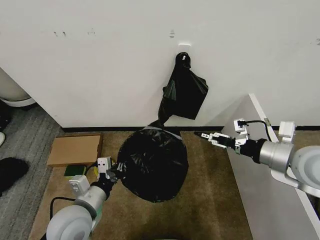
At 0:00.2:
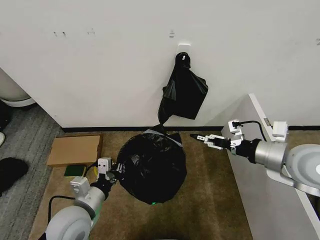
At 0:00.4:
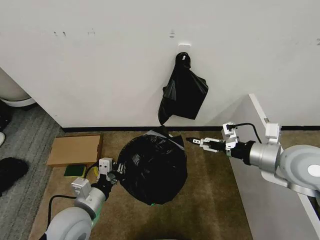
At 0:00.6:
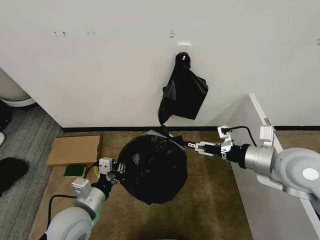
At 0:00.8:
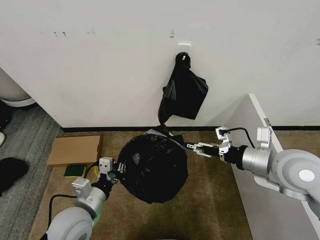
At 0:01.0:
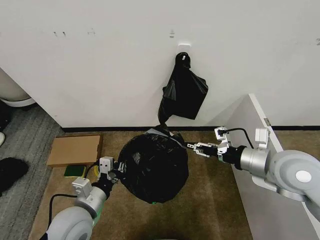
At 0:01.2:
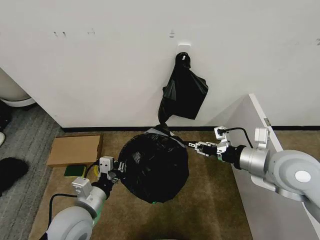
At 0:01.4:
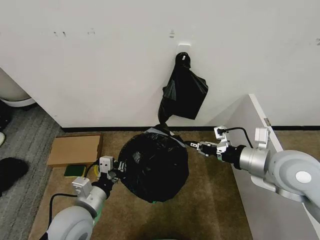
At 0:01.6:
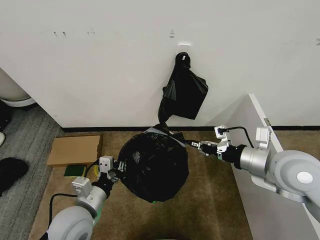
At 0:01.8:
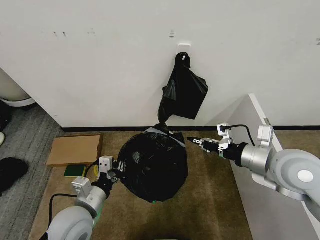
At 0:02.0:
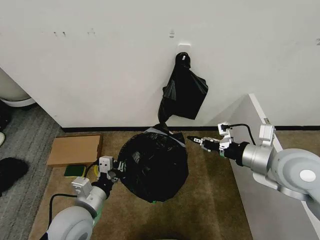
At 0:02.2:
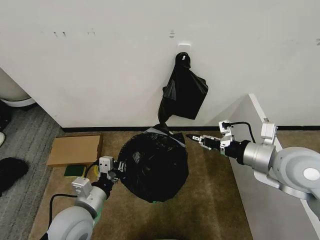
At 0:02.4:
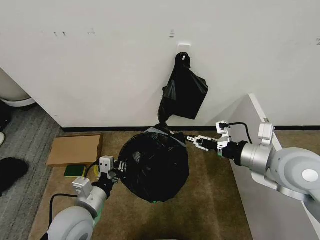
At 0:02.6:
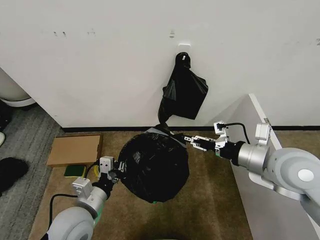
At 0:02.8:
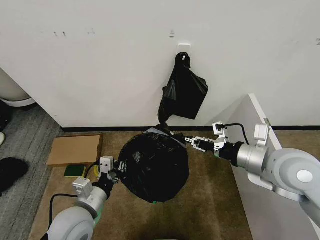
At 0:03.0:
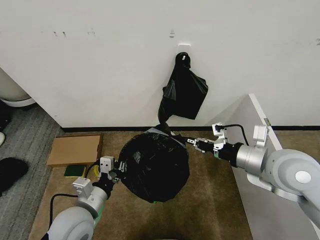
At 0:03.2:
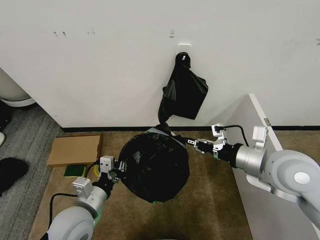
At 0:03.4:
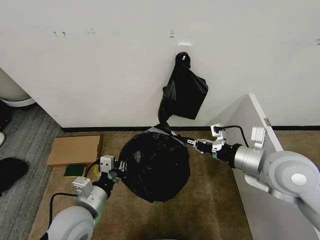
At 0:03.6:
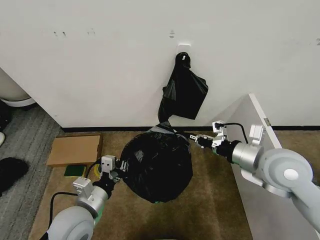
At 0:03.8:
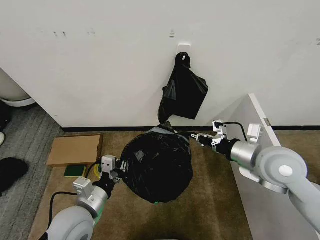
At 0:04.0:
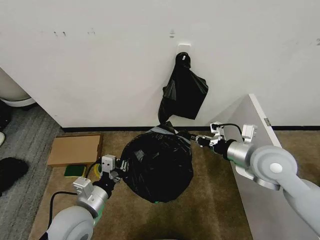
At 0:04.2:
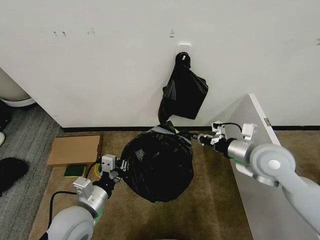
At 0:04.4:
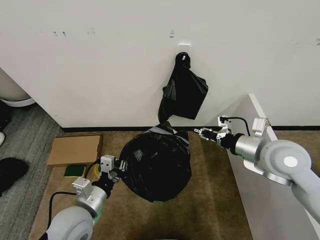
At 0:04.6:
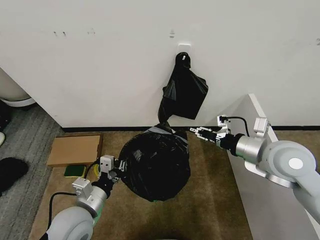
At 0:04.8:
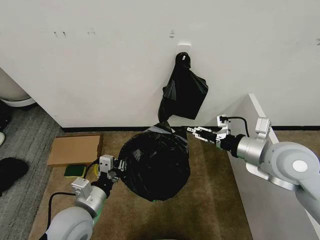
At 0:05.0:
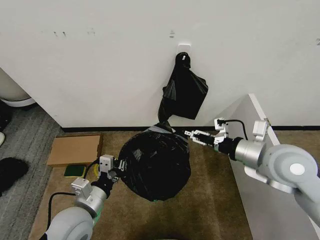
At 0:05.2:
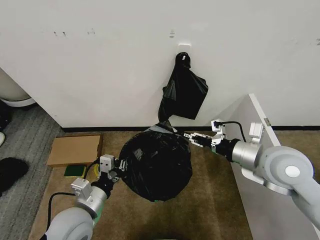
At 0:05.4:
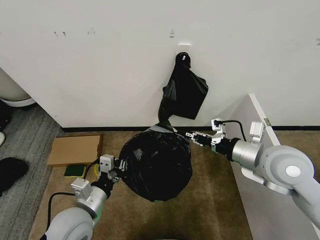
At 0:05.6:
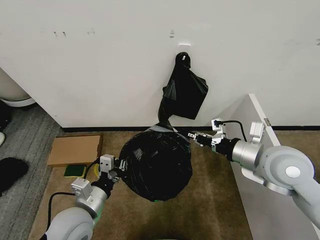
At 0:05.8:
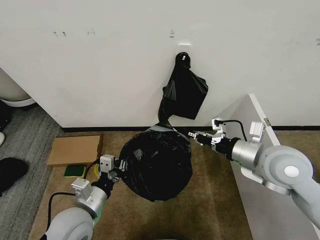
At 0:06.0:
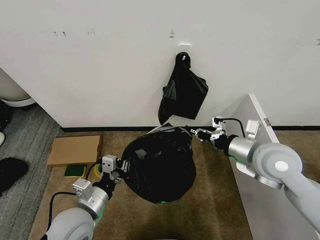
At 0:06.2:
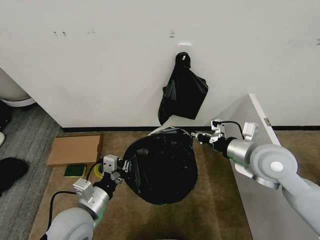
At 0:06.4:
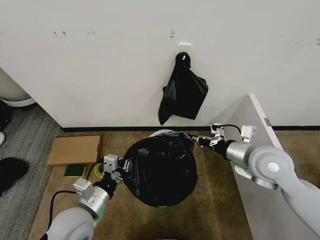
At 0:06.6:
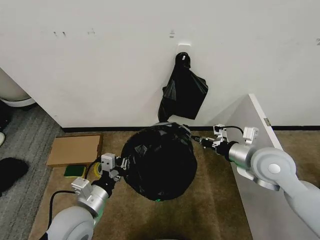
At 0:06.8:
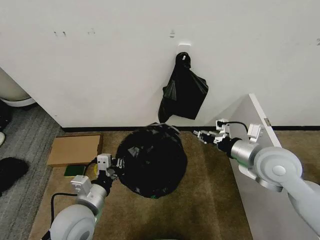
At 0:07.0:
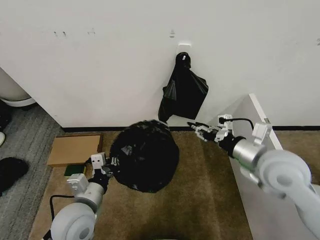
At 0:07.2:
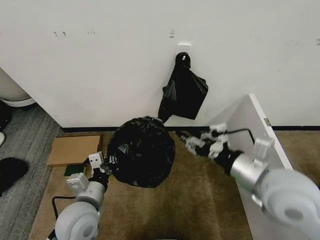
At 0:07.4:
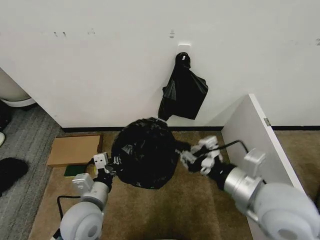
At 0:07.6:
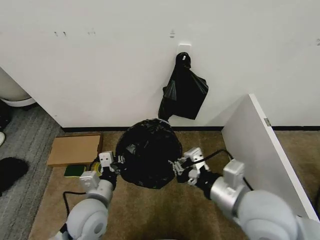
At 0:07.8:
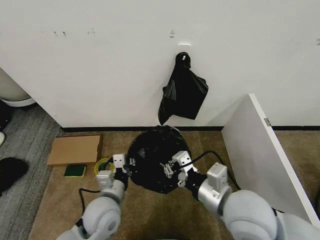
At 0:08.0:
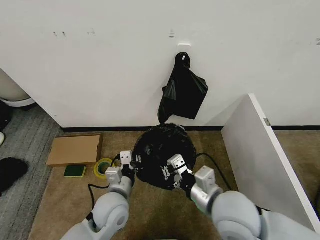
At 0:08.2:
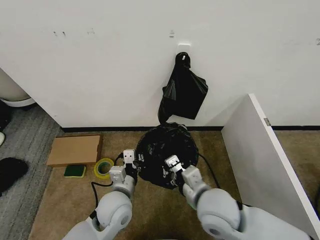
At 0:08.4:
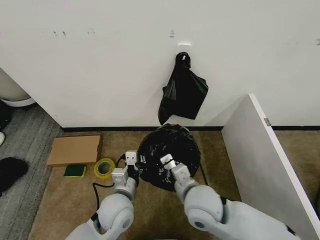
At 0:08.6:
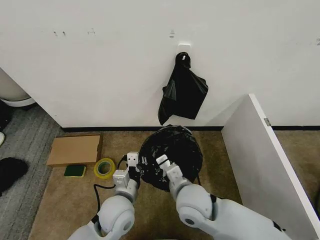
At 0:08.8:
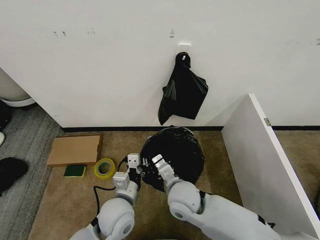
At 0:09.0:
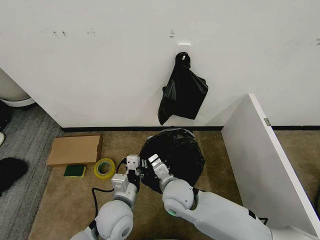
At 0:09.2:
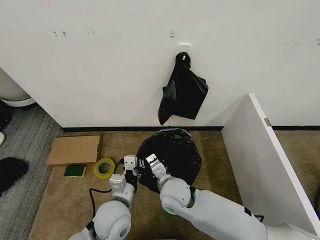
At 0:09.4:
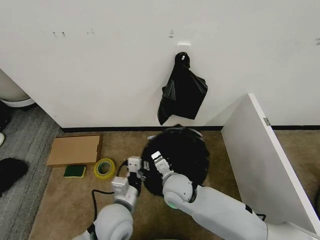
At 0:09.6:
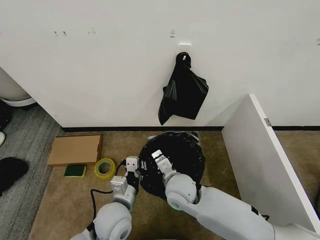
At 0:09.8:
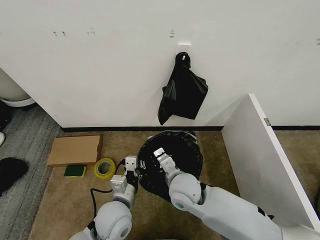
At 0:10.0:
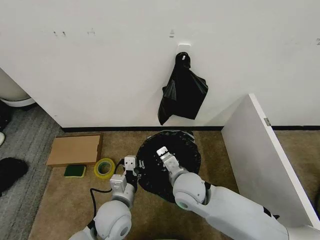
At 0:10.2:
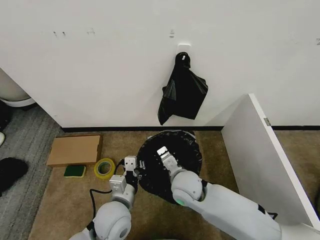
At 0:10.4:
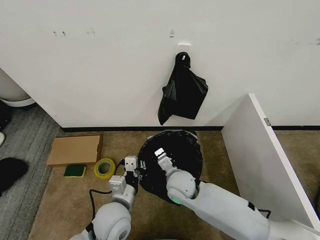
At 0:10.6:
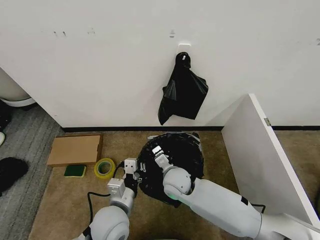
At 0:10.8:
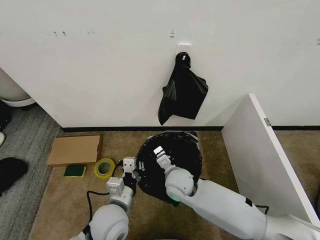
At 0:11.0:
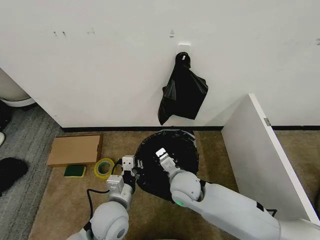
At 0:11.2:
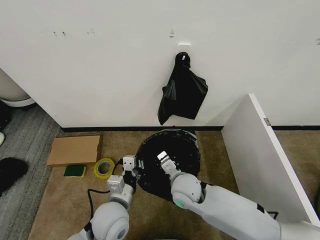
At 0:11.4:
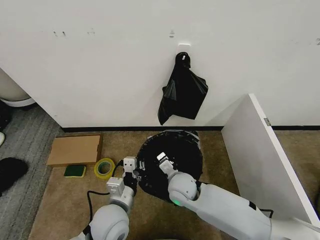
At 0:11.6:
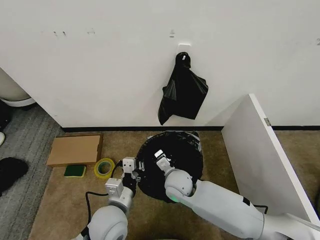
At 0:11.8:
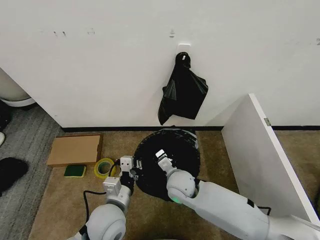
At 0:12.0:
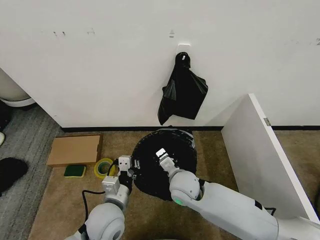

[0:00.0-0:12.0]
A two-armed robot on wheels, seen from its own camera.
Task of the whole recording: Place the garbage bag over the trash bin.
0:00.0 to 0:01.6: The right gripper closes up.
0:01.6 to 0:03.0: The right gripper opens and closes again.
0:04.4 to 0:06.0: The right gripper opens, then closes again.
0:06.0 to 0:07.6: The right gripper goes approximately 15 cm backward and to the left, and opens, then closes again.
0:07.6 to 0:09.0: The right gripper is displaced to the left, downward and forward by roughly 25 cm, while the left gripper heads to the right, covering approximately 5 cm.
0:09.0 to 0:12.0: The grippers move only a little.

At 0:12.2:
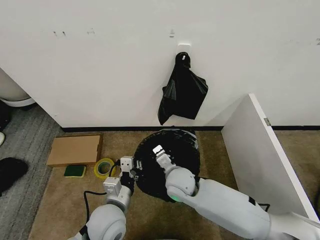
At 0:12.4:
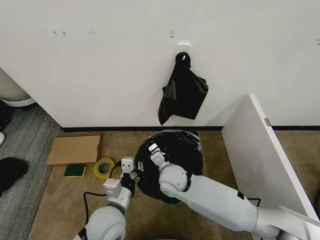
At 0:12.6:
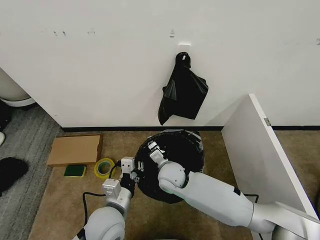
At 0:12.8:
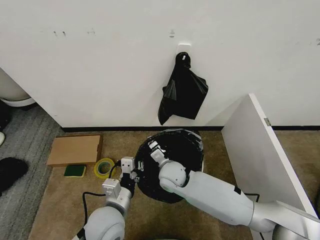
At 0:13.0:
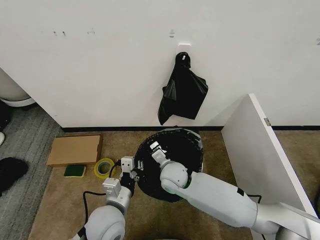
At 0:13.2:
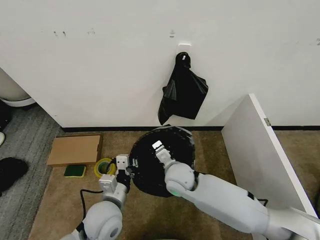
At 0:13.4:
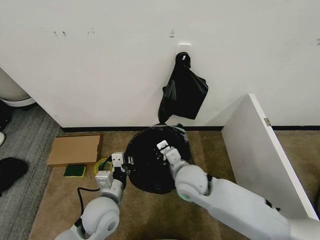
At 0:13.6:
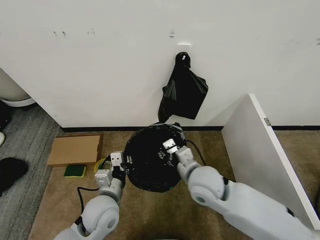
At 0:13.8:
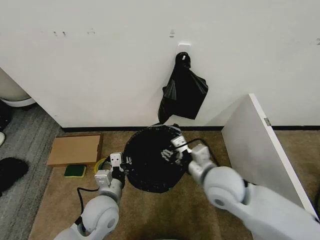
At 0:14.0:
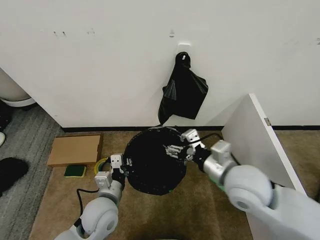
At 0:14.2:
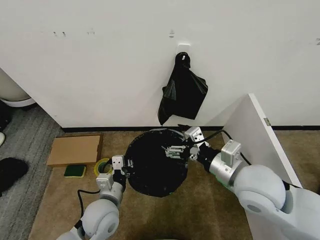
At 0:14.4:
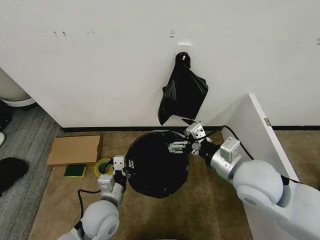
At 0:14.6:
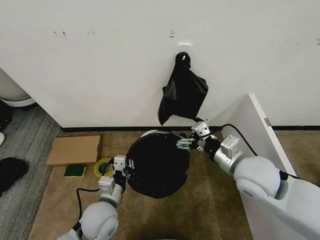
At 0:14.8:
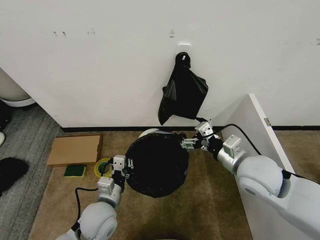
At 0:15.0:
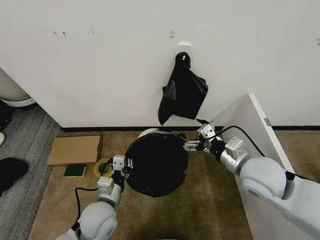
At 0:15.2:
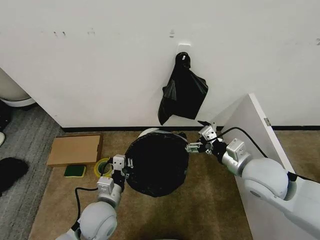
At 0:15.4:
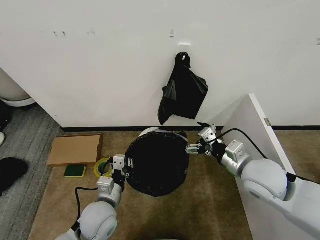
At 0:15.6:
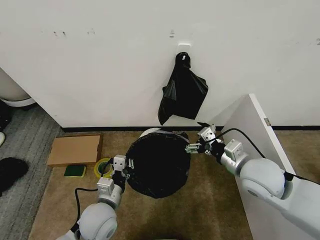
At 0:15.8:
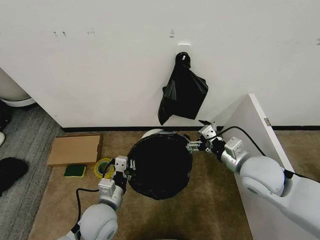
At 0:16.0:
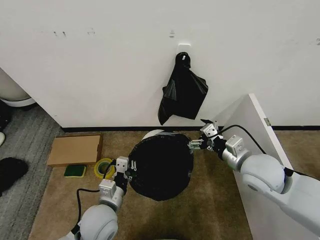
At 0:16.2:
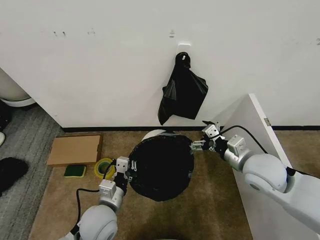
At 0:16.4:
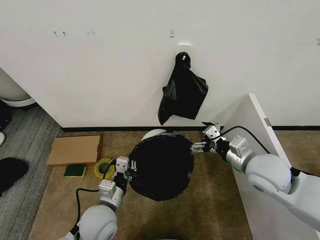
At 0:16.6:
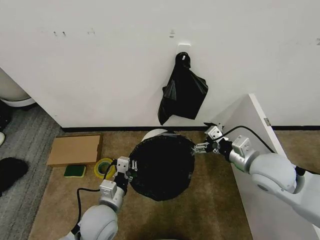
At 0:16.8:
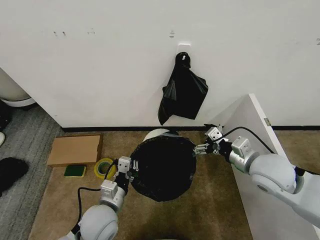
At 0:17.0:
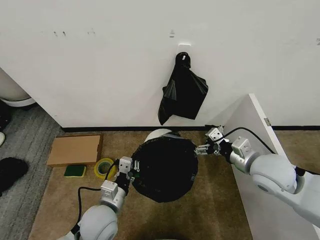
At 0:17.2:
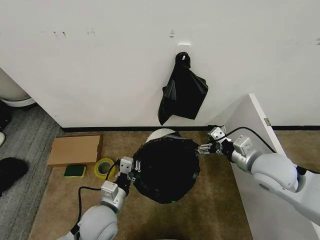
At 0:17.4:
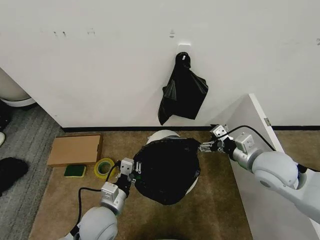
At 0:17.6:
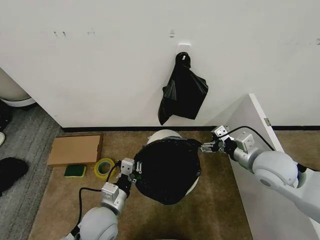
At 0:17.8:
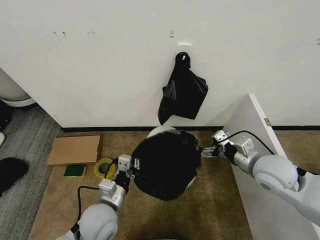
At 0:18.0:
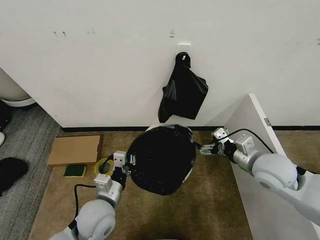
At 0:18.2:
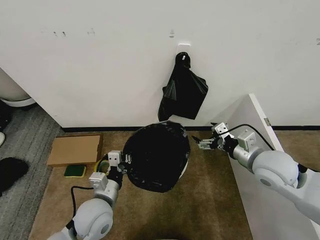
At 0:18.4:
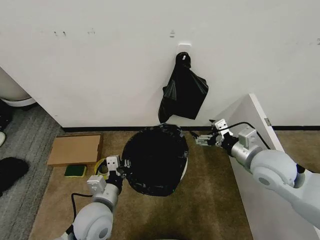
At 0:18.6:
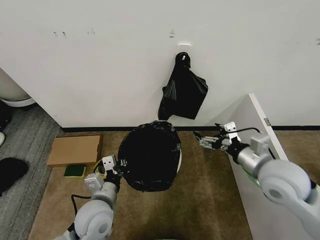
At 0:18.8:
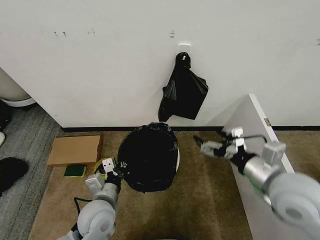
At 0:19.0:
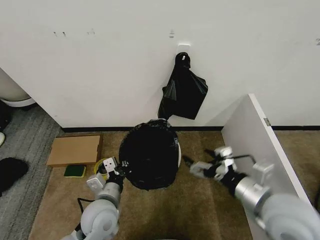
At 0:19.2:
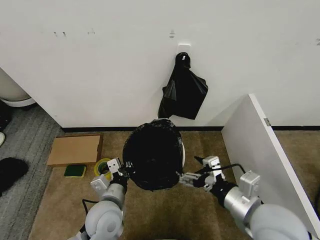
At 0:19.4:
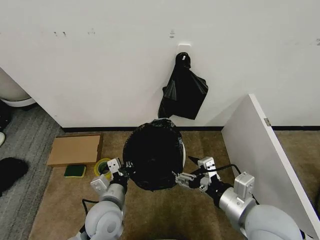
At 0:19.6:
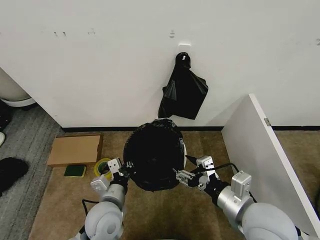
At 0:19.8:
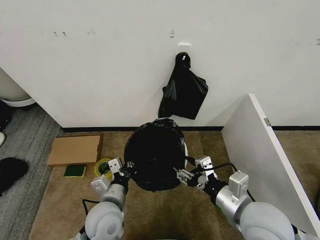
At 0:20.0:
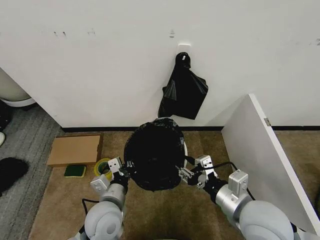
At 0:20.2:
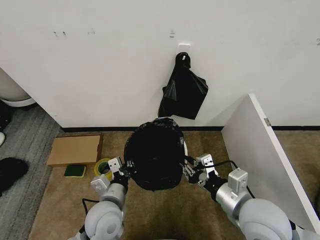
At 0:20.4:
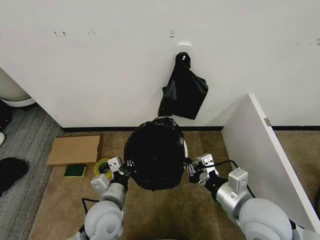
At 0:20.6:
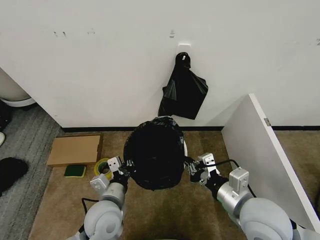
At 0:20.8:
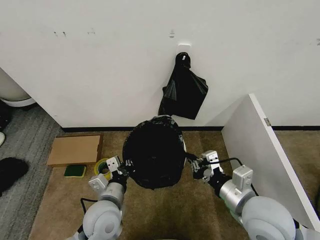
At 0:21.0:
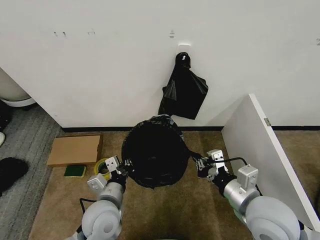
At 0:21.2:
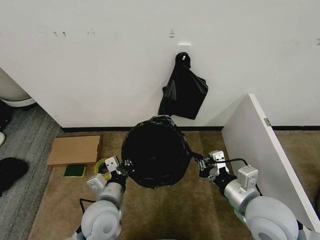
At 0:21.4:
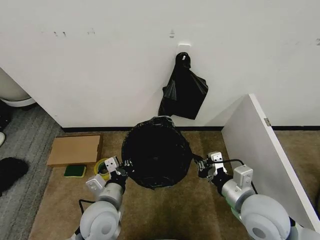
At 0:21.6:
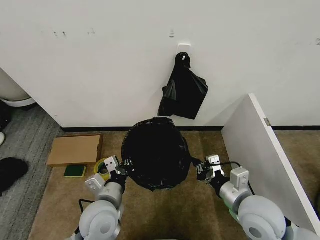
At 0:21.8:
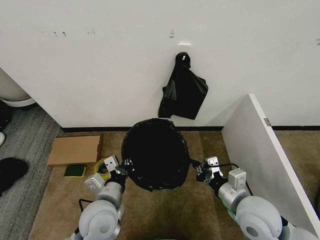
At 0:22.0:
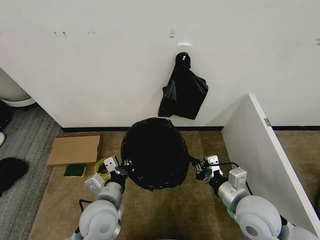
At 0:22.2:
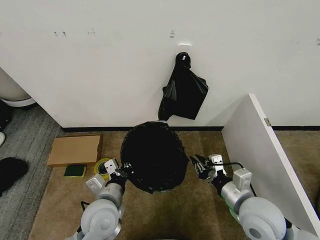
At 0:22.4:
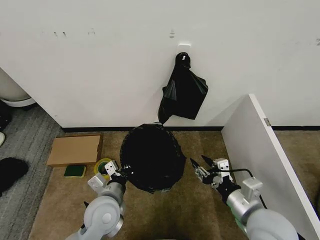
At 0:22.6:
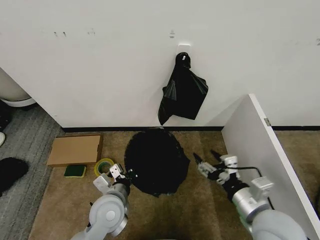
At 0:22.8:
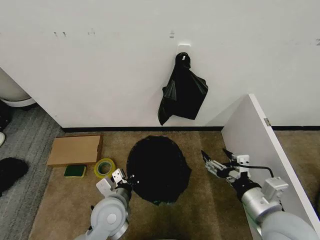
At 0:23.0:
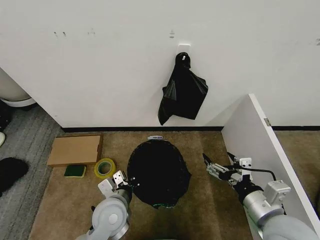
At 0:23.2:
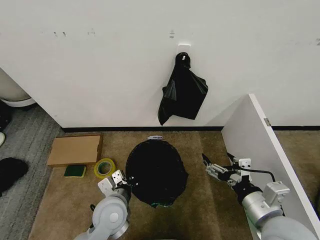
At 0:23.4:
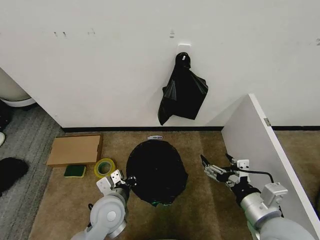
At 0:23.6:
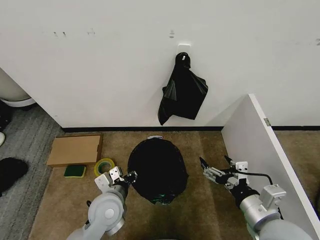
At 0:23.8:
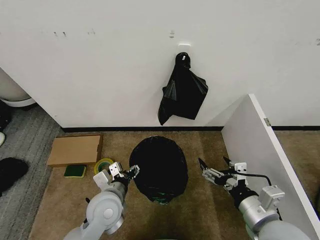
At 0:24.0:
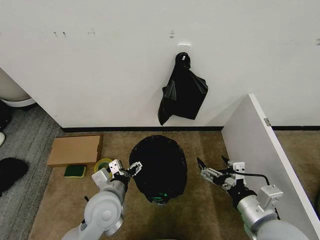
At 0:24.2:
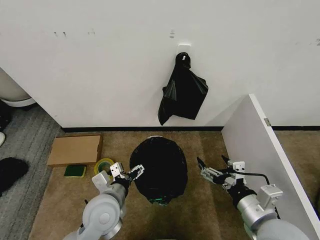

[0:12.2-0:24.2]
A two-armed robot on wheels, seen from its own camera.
Task of the whole recording: Place the garbage bag over the trash bin.
0:12.2 to 0:13.8: The right gripper moves to the right, upward and backward, approximately 15 cm, and opens its fingers.
0:13.8 to 0:15.2: The right gripper goes approximately 10 cm to the right, and opens up.
0:15.2 to 0:18.2: The grippers make only small movements.
0:18.2 to 0:19.8: The right gripper moves backward and to the left, about 15 cm, and closes its fingers.
0:19.8 to 0:21.2: The right gripper closes up.
0:21.2 to 0:22.6: The right gripper opens up.
0:22.6 to 0:24.2: The left gripper opens up.
